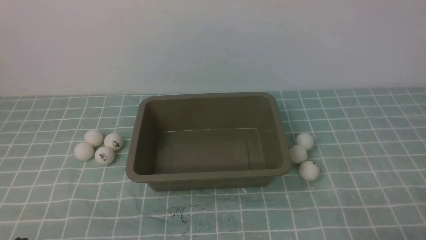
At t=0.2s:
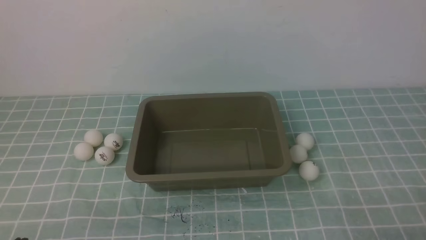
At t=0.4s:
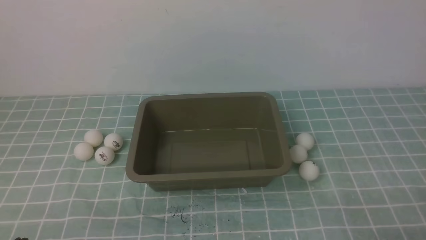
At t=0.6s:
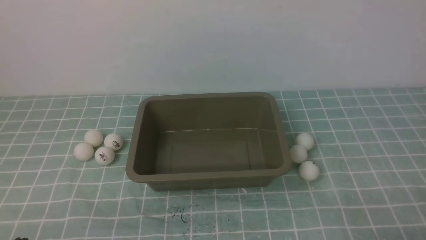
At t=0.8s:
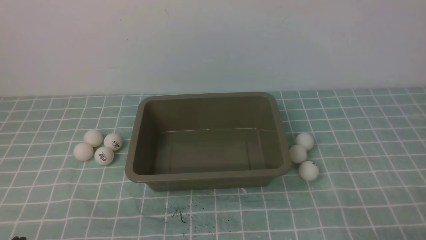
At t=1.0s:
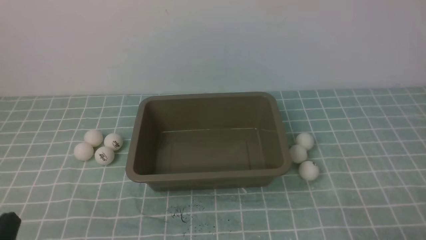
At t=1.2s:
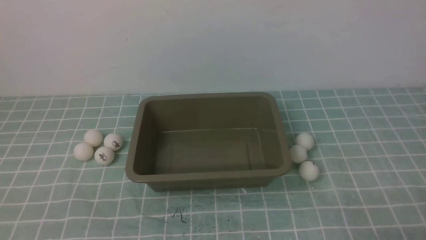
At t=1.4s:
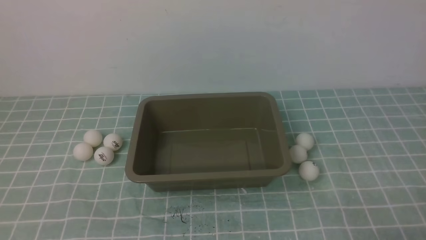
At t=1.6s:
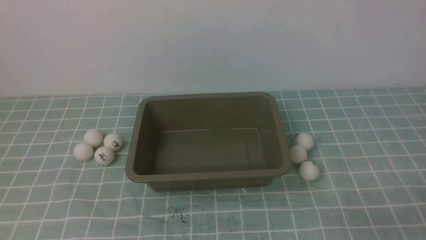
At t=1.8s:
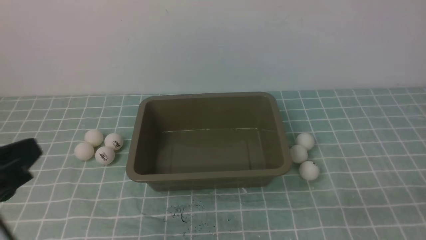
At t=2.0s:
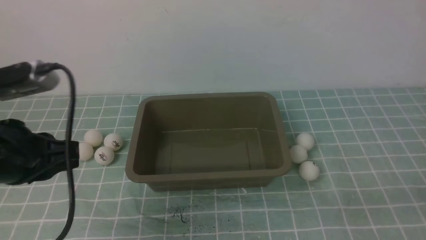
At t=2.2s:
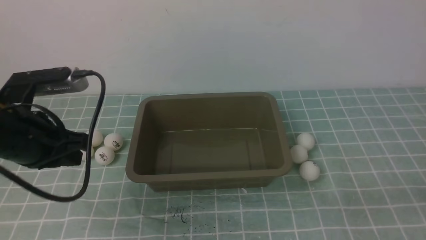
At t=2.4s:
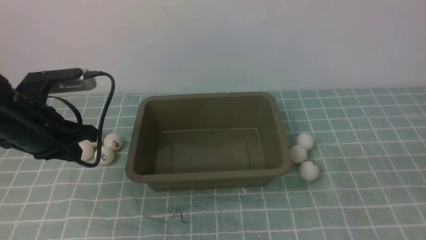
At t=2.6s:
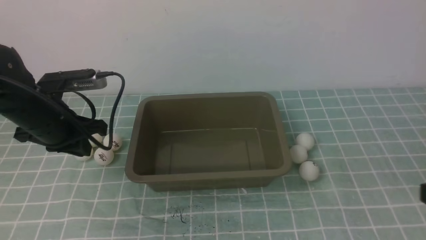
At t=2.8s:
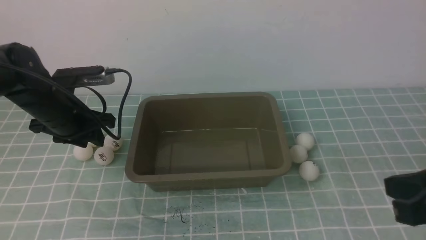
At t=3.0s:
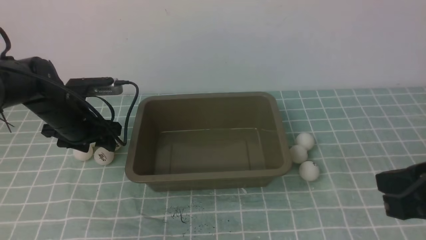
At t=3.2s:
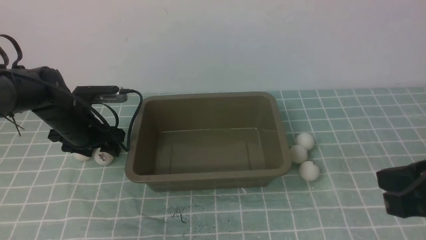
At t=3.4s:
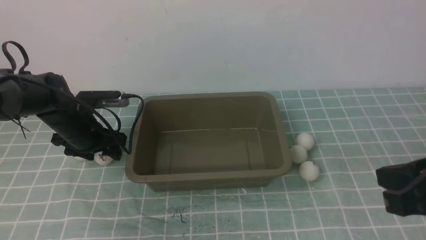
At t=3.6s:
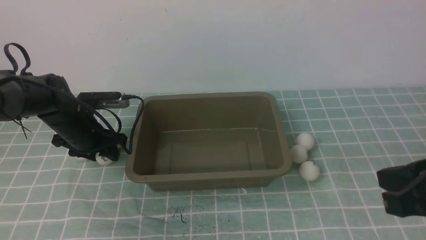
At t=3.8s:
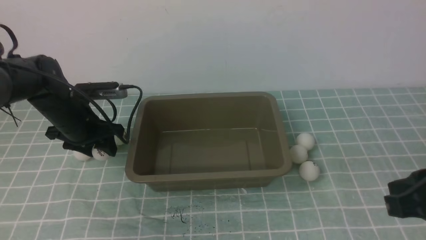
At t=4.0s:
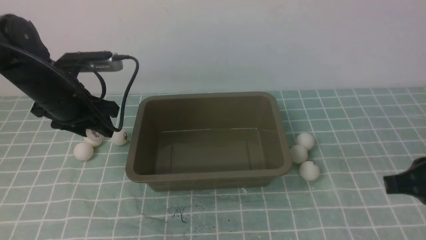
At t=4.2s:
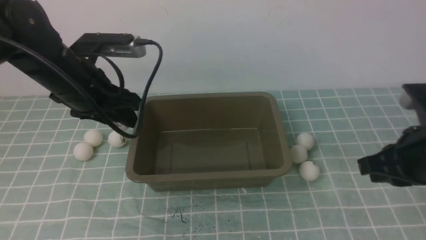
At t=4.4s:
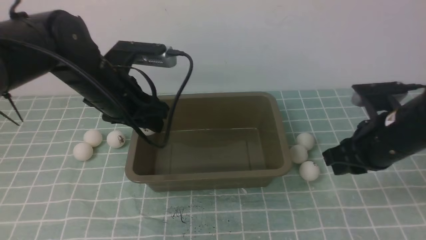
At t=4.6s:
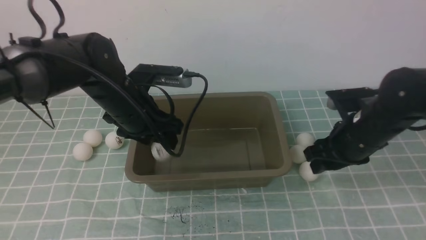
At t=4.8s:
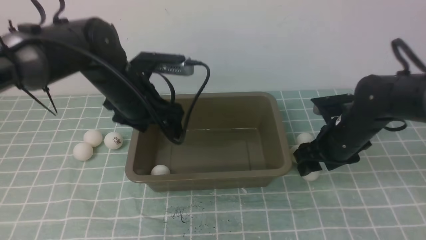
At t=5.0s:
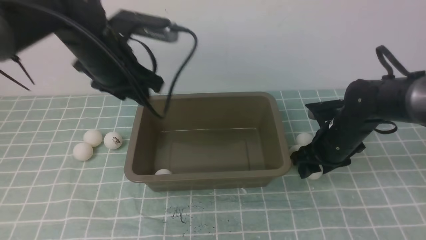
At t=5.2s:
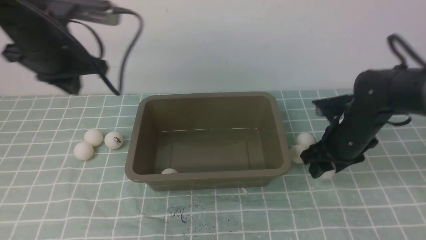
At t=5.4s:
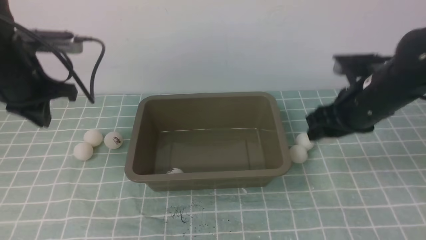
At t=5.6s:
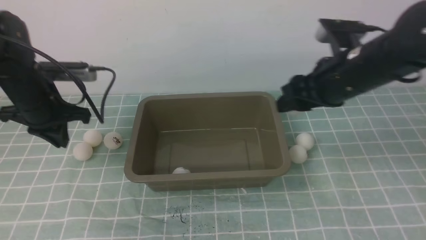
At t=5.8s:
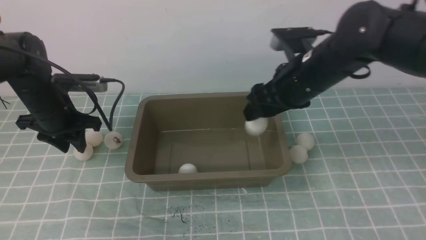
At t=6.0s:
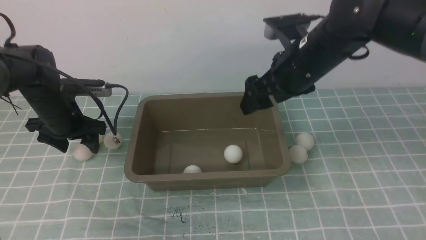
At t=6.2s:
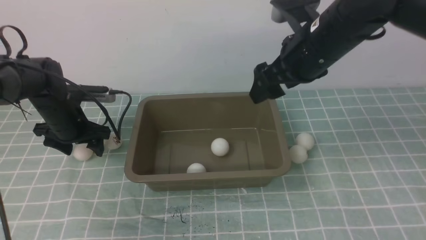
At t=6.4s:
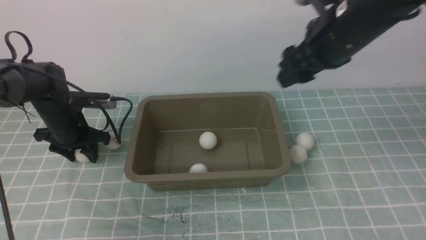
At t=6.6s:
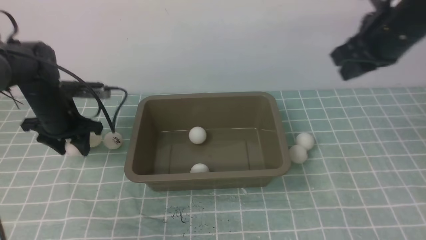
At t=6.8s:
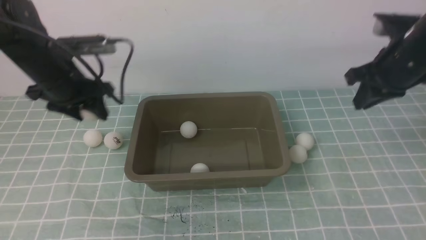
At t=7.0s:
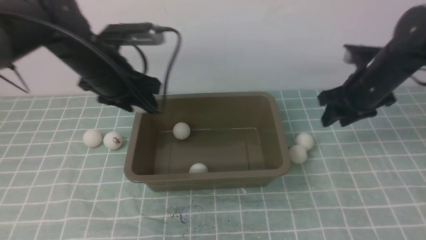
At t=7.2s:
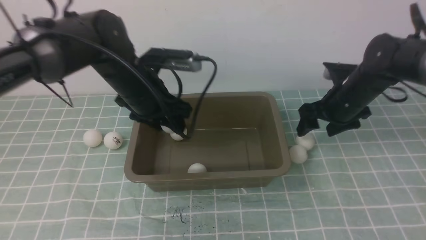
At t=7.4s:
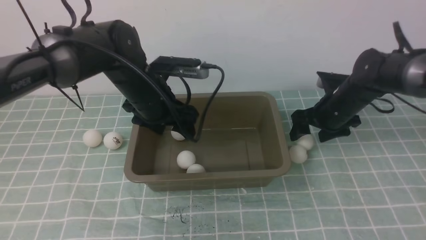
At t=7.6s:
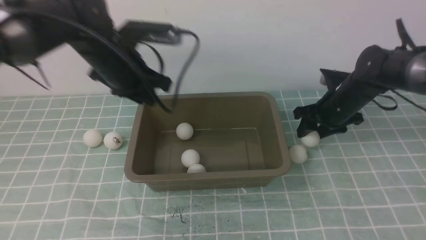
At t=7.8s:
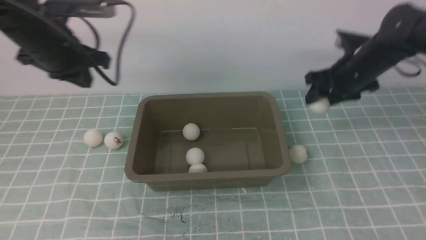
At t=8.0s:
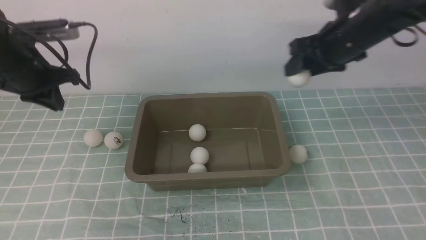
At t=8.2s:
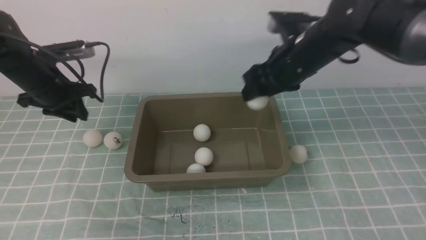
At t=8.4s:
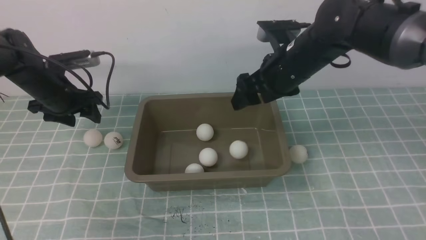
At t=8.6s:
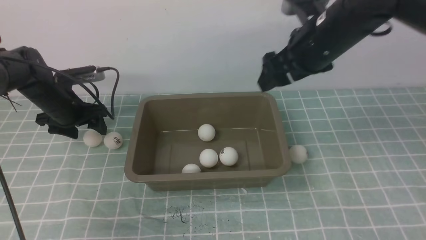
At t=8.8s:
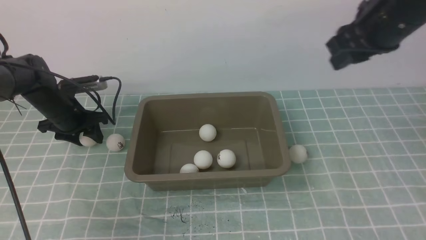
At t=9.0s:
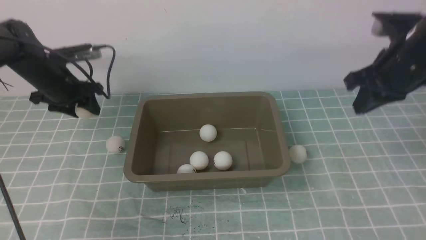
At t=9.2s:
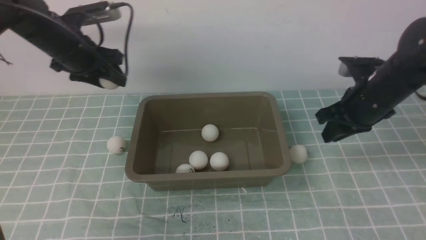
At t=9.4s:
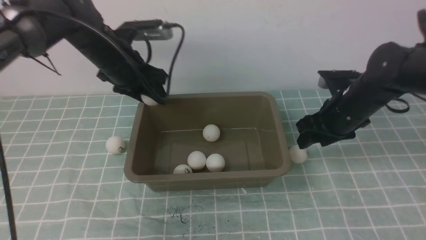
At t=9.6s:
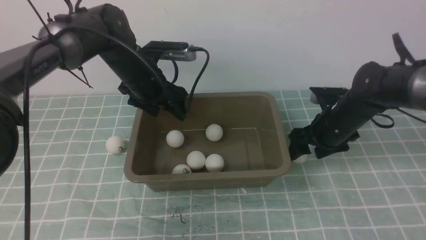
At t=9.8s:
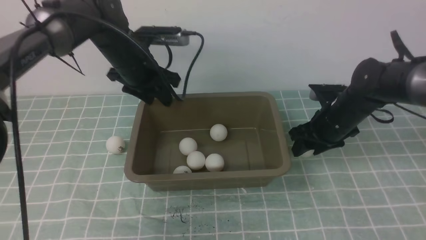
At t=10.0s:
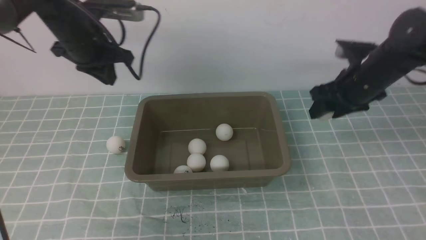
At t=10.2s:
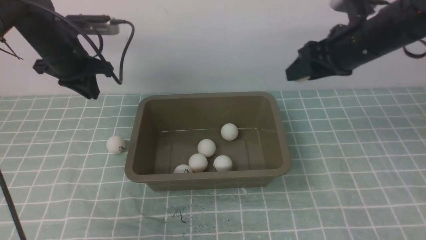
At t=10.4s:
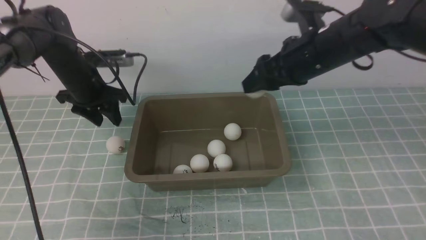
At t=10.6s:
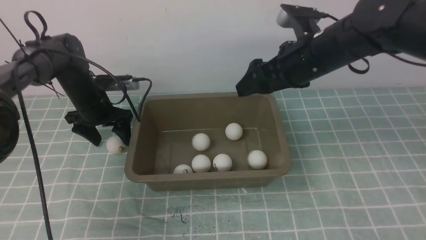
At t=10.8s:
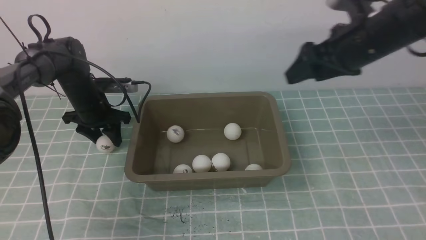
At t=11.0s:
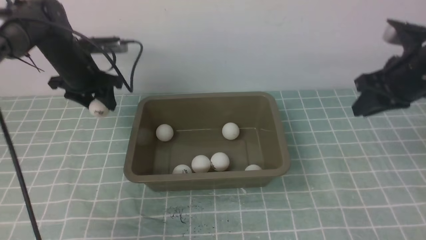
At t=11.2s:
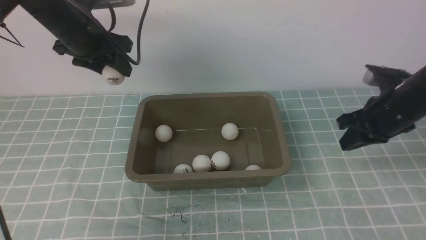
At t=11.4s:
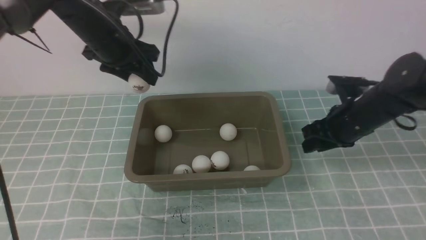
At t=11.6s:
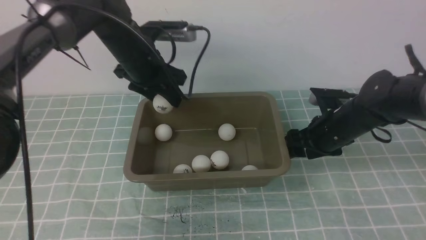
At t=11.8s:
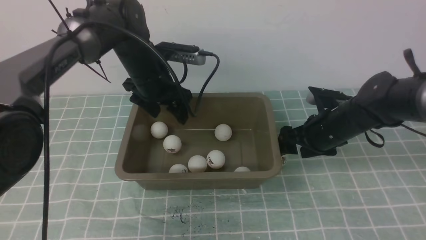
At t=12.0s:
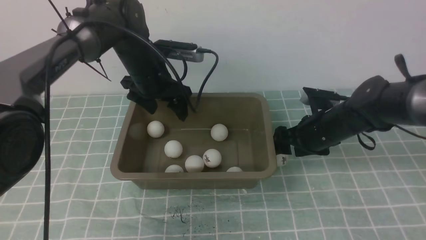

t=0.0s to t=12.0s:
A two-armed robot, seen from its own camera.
Step, t=0.0s to t=3.6s: use the left arm to clamp the table tennis ball closest to it.
Step, t=4.0s to t=4.6s: use the left arm to put the table tennis ball into the box.
Step, t=4.8s to t=5.2s: use the right arm to clamp the table tennis ball closest to it.
Step, t=5.4s to t=5.8s: use the right arm to put the table tennis ball into the box.
Step, t=6.0s to t=6.4s: use the left arm to clamp the table tennis ball closest to it.
Step, t=6.8s to t=7.2s: use the left arm to put the table tennis ball into the box.
Step, t=7.4s to t=7.6s: use the right arm to clamp the table tennis ball closest to it.
Step, t=7.8s to t=8.2s: use the right arm to put the table tennis ball into the box.
Step, t=8.4s to t=8.8s: use the left arm to clamp the table tennis ball closest to it.
Step, t=9.0s to t=9.4s: use the left arm to put the table tennis ball into the box.
Step, t=10.0s to t=10.4s: use the right arm to put the table tennis ball into the box.
Step, t=10.6s to t=10.8s: use the left arm to clamp the table tennis ball closest to it.
Step, t=11.0s to t=11.8s: use the left arm to put the table tennis ball into the box.
t=1.6s to t=3.0s: The left gripper travels forward by about 30 cm, and opens its fingers. The right gripper heads upward, forward and to the left, covering about 15 cm.
t=3.0s to t=4.4s: The left gripper travels to the right and upward by about 10 cm. The right gripper is displaced forward and downward by about 15 cm.
t=4.4s to t=6.0s: The right gripper goes approximately 15 cm to the left, forward and upward, and opens its fingers; the left gripper heads to the left, downward and forward, covering roughly 15 cm, and closes, then reopens.
t=6.0s to t=7.6s: The right gripper heads downward, to the right and forward, covering approximately 15 cm, and closes, then opens again, while the left gripper shifts approximately 15 cm upward and to the right, and closes its fingers.
t=7.6s to t=9.0s: The right gripper is displaced upward and backward by approximately 15 cm, and closes up, while the left gripper travels to the left, downward and forward by roughly 15 cm.
t=9.0s to t=10.4s: The right gripper moves to the left, about 10 cm, reaches approximately 15 cm downward, then returns, and opens. The left gripper moves about 15 cm to the right and comes back, and closes, then reopens.
t=10.4s to t=12.0s: The right gripper heads downward, covering about 15 cm, and closes, then reopens, while the left gripper moves up and down over some 15 cm, changing direction 2 times.

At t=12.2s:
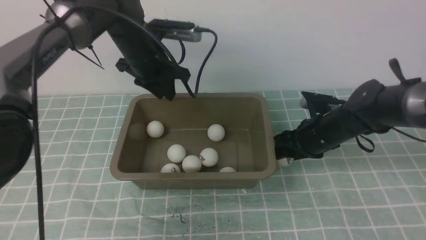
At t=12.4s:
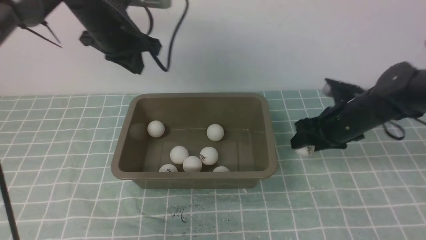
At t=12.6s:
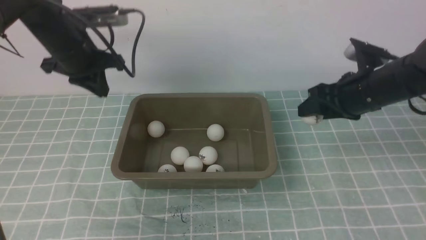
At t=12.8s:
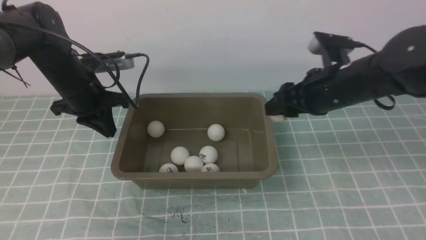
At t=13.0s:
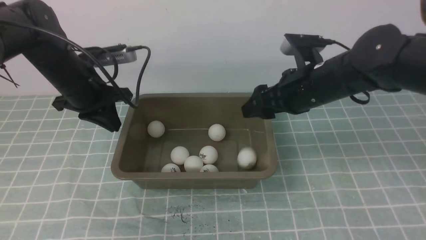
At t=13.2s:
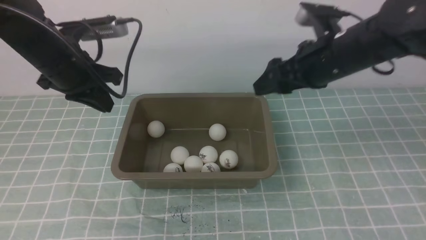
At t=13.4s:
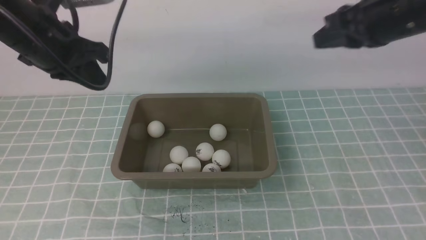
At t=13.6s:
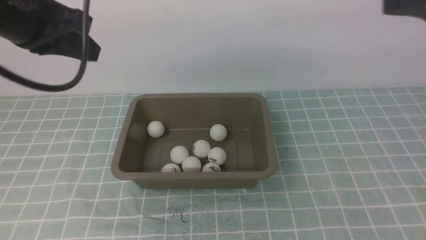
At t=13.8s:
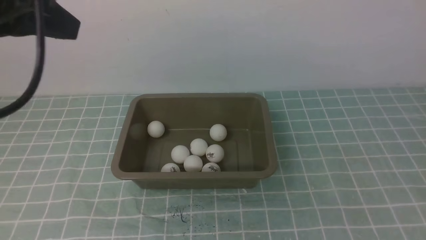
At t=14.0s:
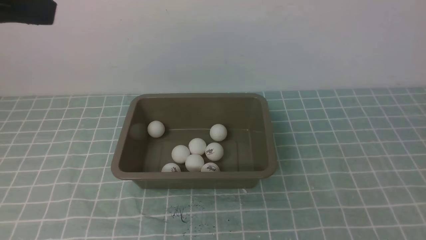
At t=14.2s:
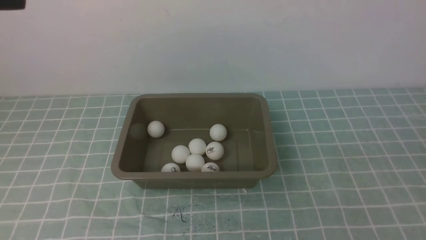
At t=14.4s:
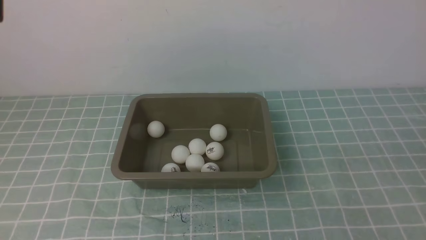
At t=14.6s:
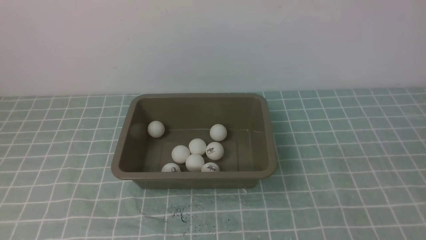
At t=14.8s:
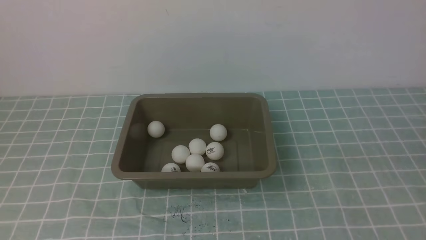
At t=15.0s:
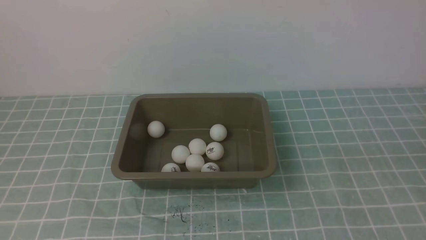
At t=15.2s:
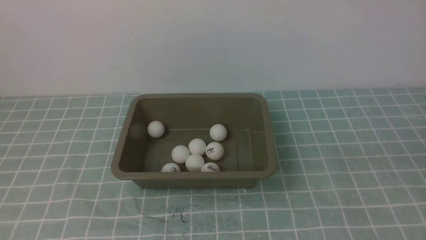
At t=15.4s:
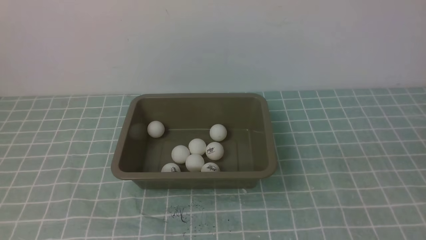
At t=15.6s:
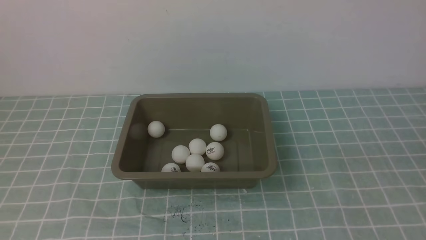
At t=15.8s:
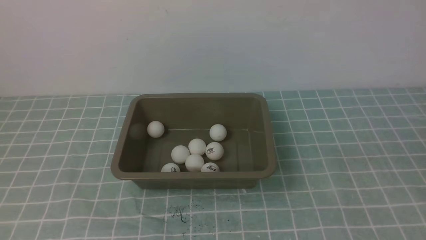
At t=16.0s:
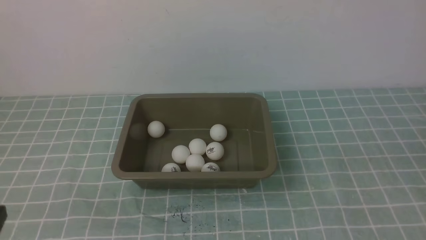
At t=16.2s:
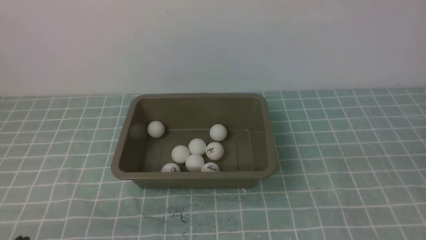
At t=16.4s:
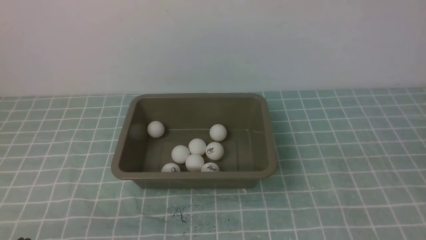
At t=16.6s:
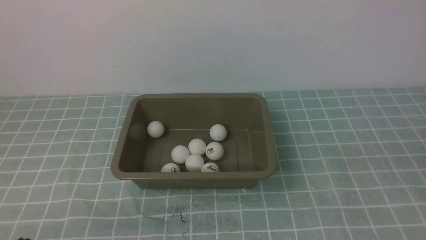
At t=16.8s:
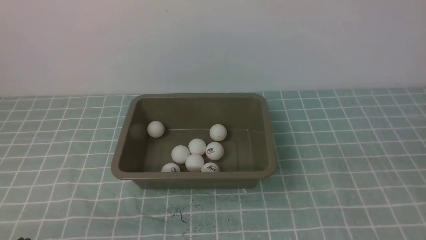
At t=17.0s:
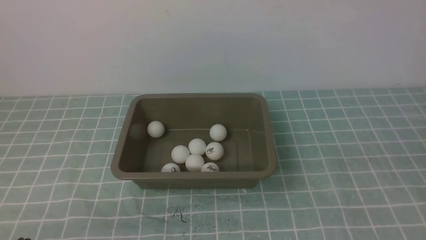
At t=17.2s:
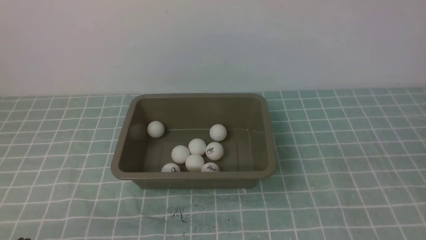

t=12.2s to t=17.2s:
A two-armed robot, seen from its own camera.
Step, t=12.4s to t=12.8s: use the left arm to put the table tennis ball into the box.
t=12.2s to t=13.8s: The left gripper heads backward and upward, covering about 30 cm, and closes up. Meanwhile the right gripper shifts some 35 cm upward and backward, and closes.
t=13.8s to t=15.6s: The left gripper travels backward and downward by some 25 cm.
